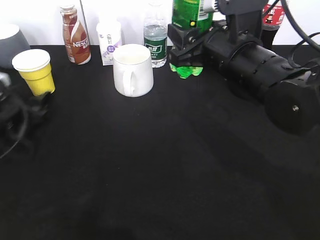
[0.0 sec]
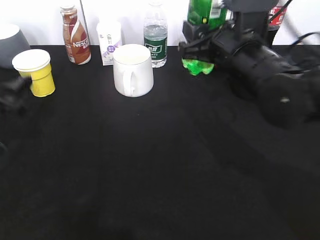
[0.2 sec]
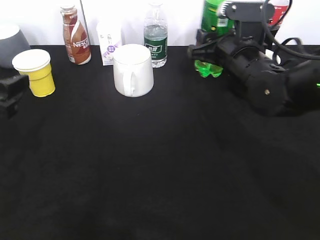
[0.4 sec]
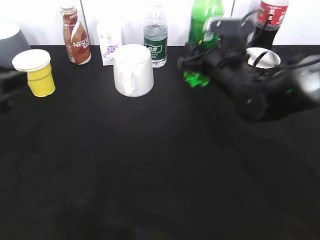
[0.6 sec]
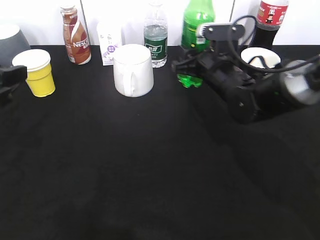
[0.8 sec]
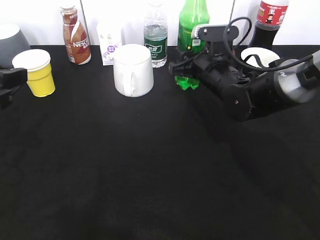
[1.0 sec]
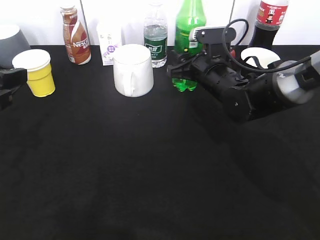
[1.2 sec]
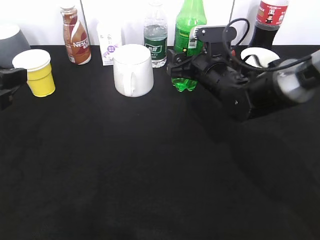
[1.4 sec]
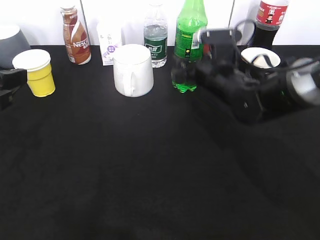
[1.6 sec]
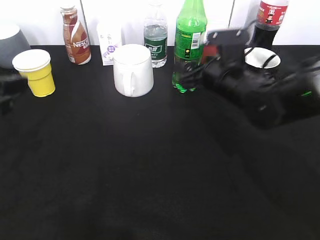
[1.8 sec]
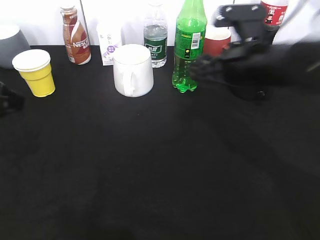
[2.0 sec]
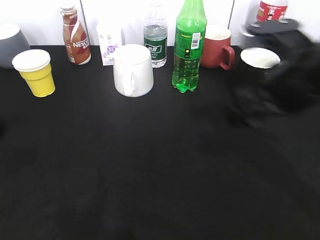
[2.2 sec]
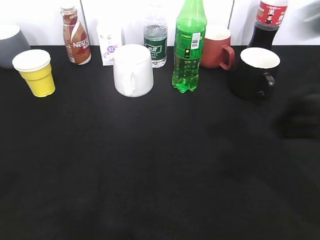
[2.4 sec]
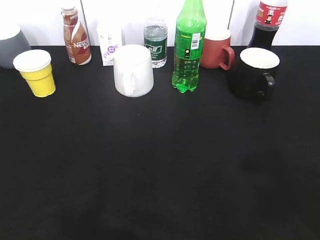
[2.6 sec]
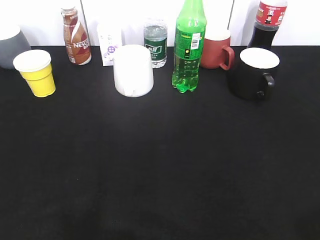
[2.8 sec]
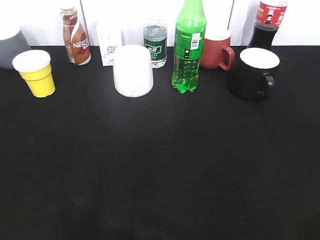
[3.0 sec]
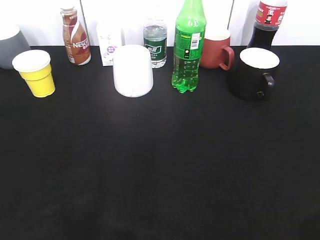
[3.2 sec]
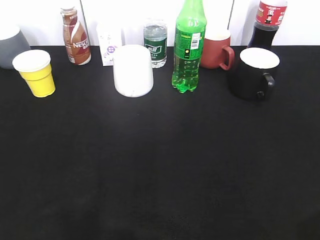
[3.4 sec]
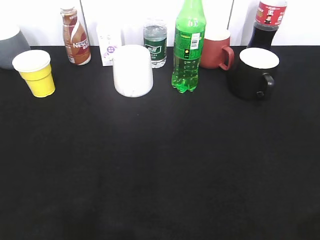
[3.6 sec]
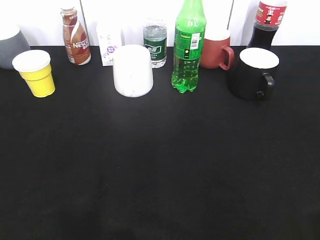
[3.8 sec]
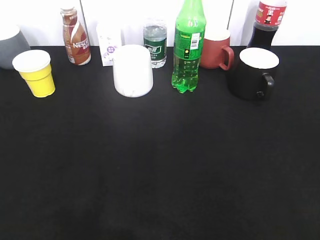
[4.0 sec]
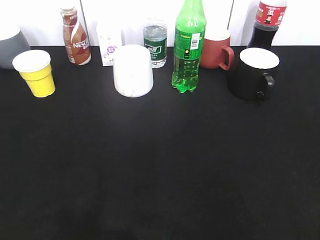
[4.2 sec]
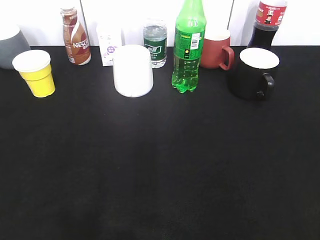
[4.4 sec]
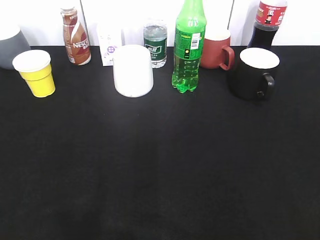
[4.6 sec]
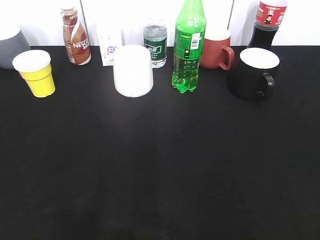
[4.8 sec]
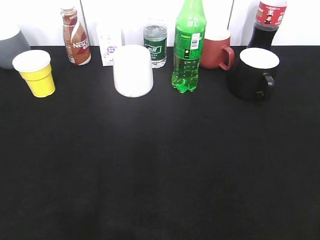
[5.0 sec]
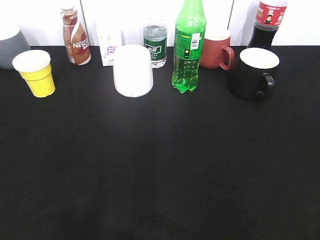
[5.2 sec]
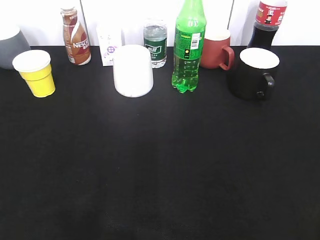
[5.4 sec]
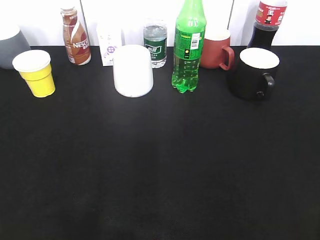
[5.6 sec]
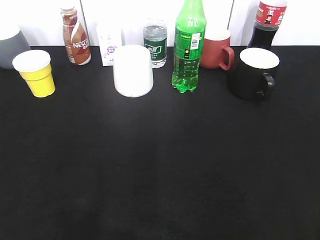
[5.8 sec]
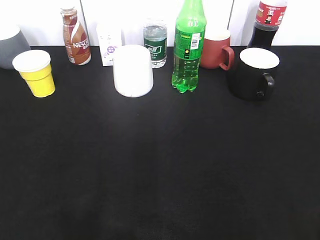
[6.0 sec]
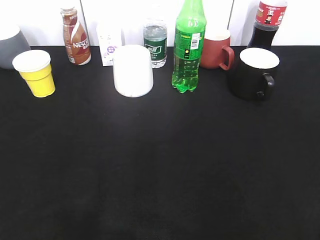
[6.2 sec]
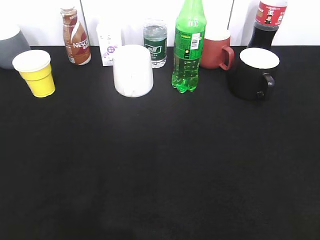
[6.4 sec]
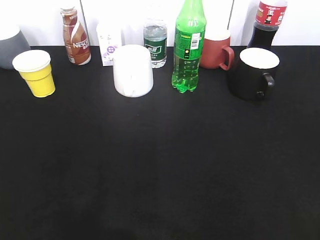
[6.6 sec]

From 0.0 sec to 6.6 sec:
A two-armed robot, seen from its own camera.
From 0.0 sec to 1.6 sec: The right gripper goes some 10 cm downward and forward, and opens its fingers, while the left gripper is displaced upward and backward by approximately 15 cm.
From 1.6 sec to 3.2 sec: The left gripper shifts approximately 20 cm backward, while the right gripper moves backward, to the right and upward, about 40 cm.
From 5.0 sec to 6.6 sec: Both grippers stay put.

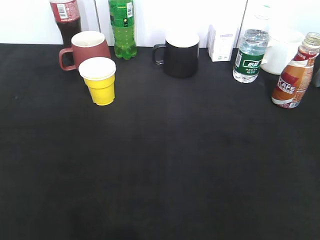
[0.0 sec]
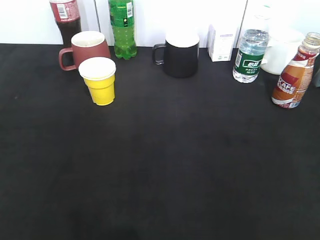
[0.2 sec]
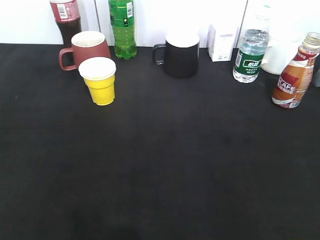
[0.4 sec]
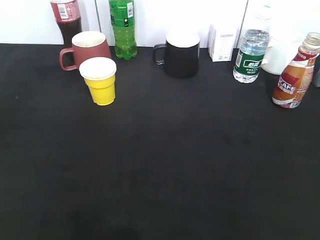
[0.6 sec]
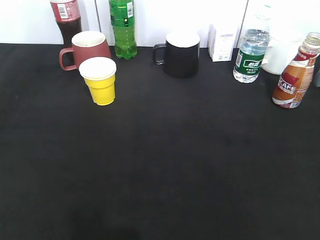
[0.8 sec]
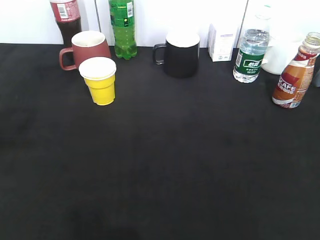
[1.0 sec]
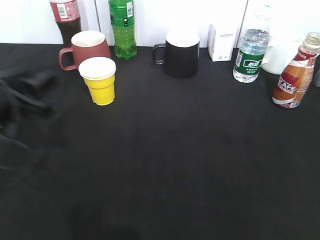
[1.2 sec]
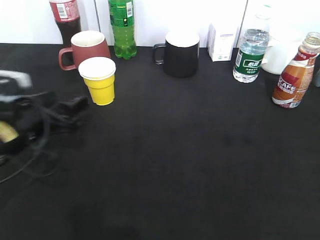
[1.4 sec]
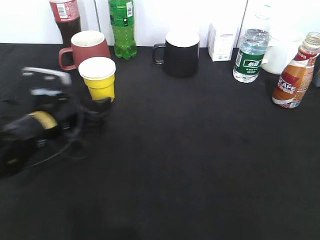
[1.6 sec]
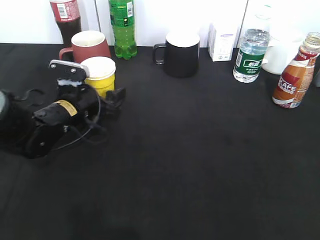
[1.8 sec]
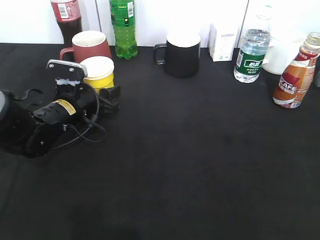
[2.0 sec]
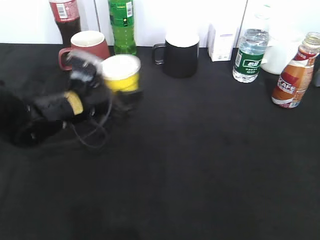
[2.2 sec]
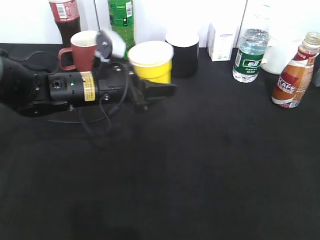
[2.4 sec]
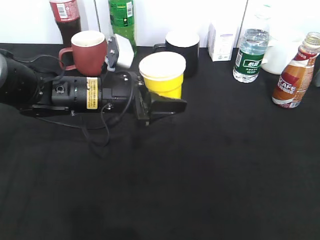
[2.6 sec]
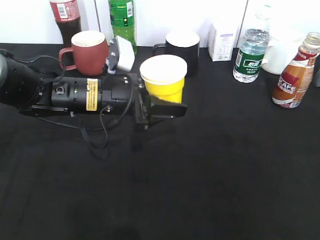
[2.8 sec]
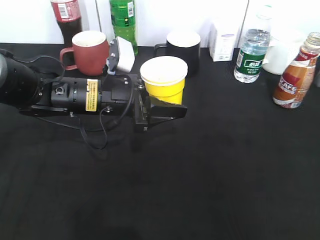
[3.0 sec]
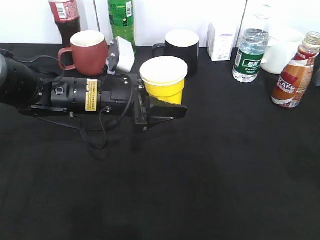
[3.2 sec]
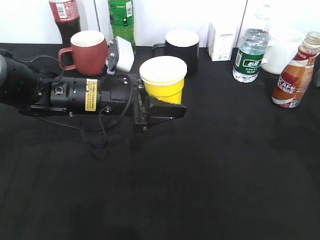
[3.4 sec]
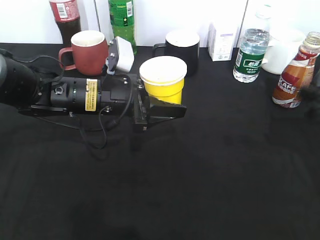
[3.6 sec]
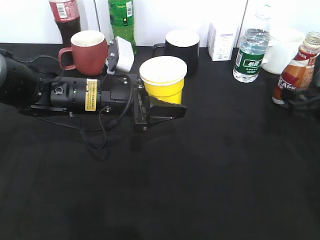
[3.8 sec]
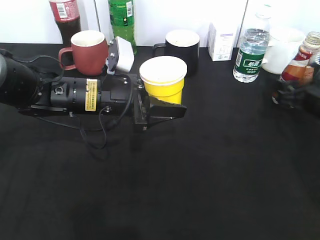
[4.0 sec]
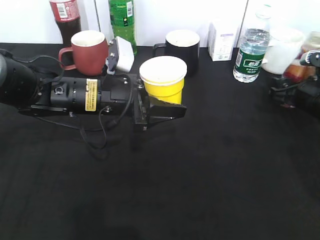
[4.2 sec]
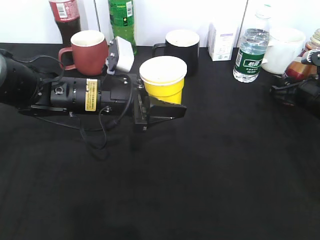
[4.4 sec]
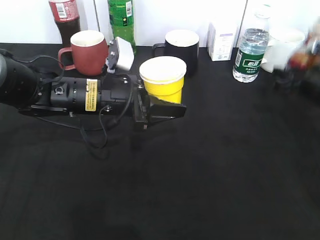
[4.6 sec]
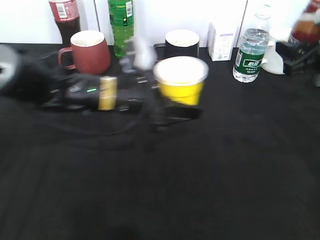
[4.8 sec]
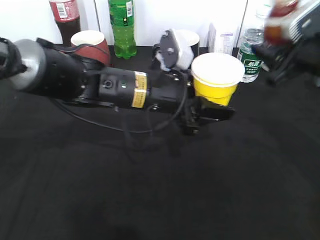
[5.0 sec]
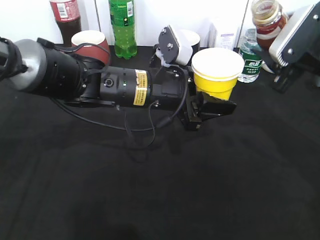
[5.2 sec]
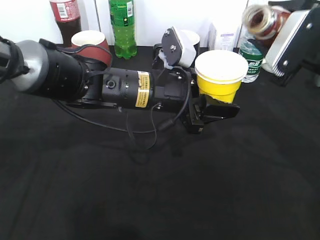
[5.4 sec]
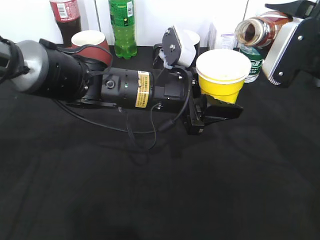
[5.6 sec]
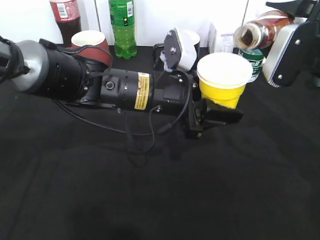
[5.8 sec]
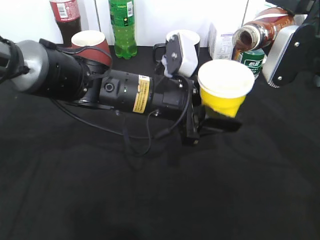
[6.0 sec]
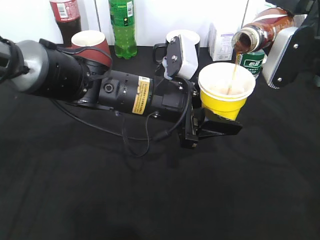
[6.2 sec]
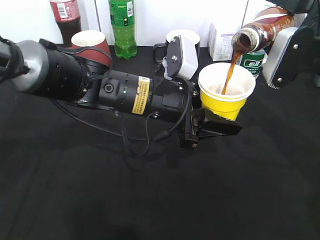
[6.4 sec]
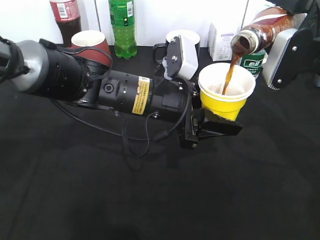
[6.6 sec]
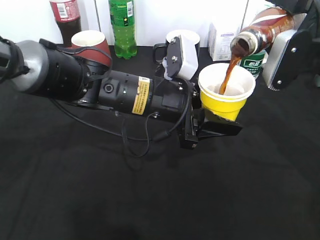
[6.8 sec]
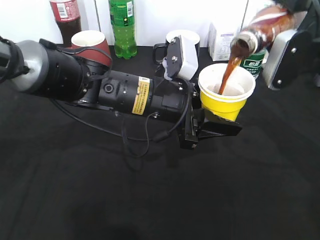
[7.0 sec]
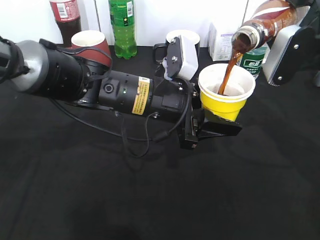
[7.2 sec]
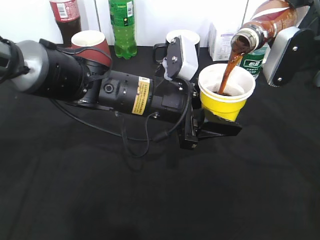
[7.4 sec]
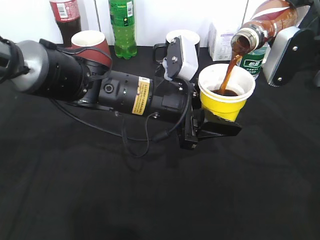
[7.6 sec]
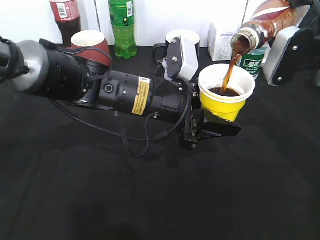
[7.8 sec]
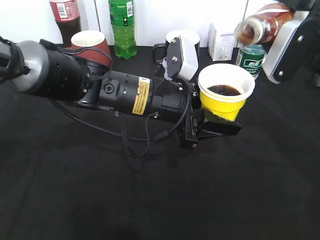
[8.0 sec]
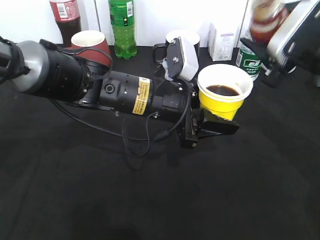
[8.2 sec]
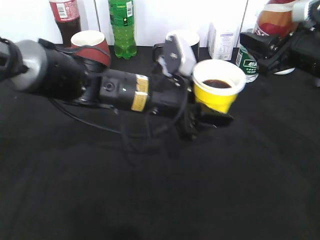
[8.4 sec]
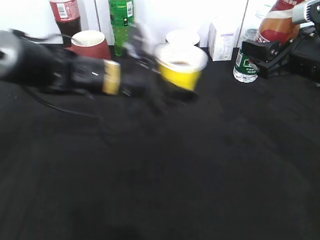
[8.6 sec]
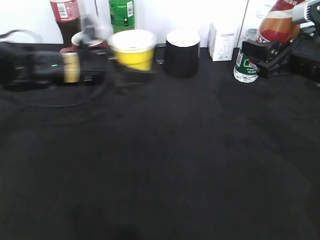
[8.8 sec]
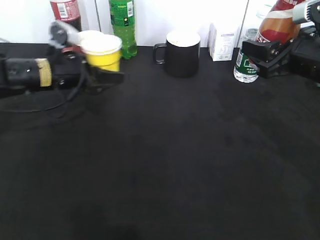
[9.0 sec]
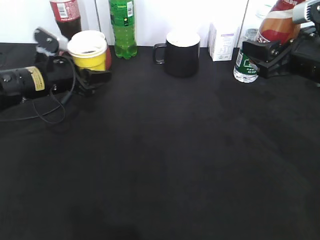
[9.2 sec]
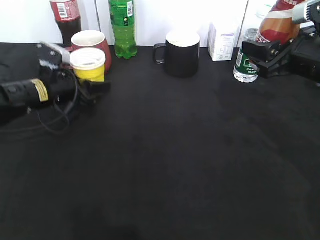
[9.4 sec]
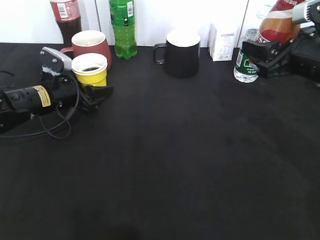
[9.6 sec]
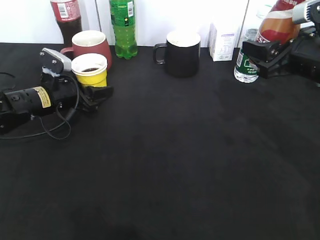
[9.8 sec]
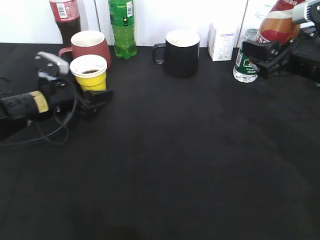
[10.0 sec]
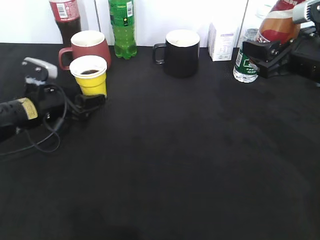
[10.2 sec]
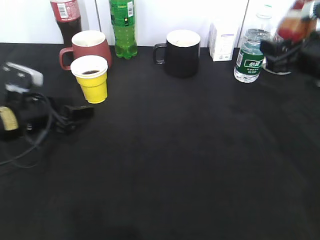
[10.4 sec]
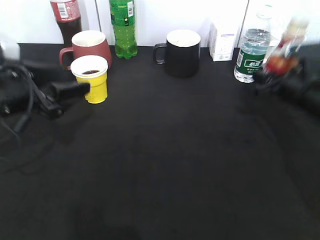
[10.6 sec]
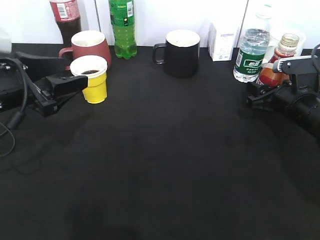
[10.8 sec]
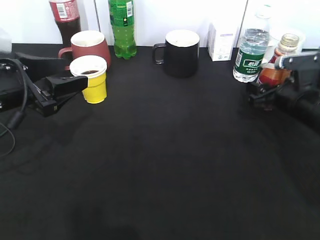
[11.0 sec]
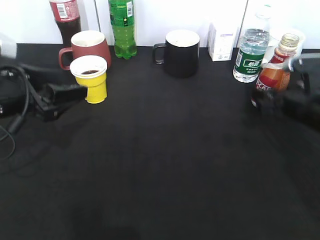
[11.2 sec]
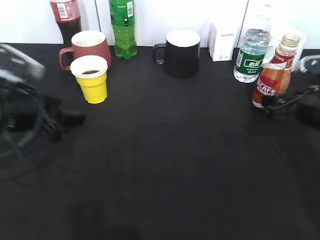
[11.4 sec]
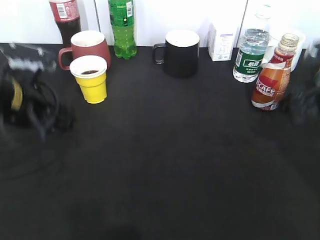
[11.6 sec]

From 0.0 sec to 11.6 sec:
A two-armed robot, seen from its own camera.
Step, from 1.2 sec to 2.0 sec: Grasp the yellow paper cup with left gripper.
Step, from 2.2 sec to 3.4 sec: Lift the yellow paper cup with left gripper.
Step, from 3.6 sec to 4.2 sec: Grasp the bottle with coffee with right gripper.
Step, from 4.4 sec to 8.0 sec: Pour the coffee from bottle to cup with right gripper.
Step, from 8.2 sec to 9.8 sec: Place the yellow paper cup on the table with left gripper.
Step, from 10.0 sec to 11.0 sec: Place the coffee bottle on the table with right gripper.
From 0.0 sec to 1.4 sec: The left gripper shifts about 30 cm forward, downward and to the right, and opens its fingers.
From 1.4 sec to 2.8 sec: The left gripper shifts approximately 15 cm to the right and forward, and closes.
From 2.8 sec to 4.4 sec: The right gripper goes approximately 40 cm forward and downward, and closes up.
From 4.4 sec to 5.8 sec: The left gripper heads to the right, covering some 10 cm. Meanwhile the right gripper goes some 15 cm upward and to the left.
From 5.8 sec to 7.2 sec: The grippers make only small movements.
From 7.2 sec to 8.8 sec: The left gripper moves to the left and forward, roughly 15 cm.
From 8.8 sec to 10.2 sec: The left gripper shifts roughly 10 cm to the left and downward, and opens its fingers.
From 10.2 sec to 11.6 sec: The right gripper moves roughly 10 cm downward and comes back, and opens up; the left gripper shifts about 15 cm upward and backward.

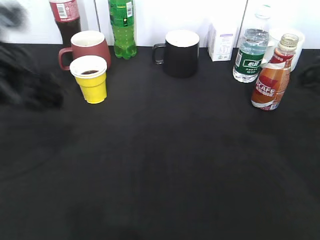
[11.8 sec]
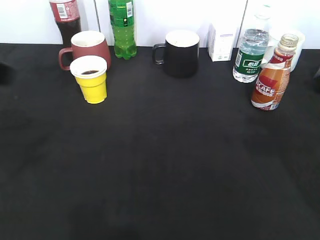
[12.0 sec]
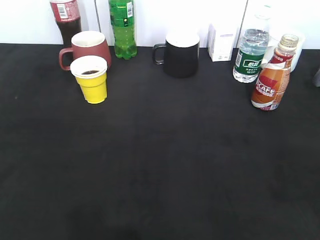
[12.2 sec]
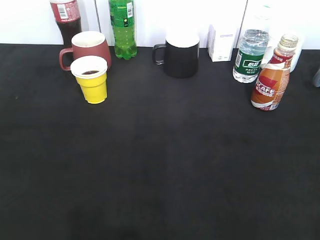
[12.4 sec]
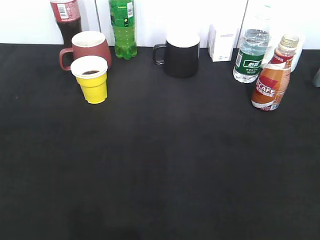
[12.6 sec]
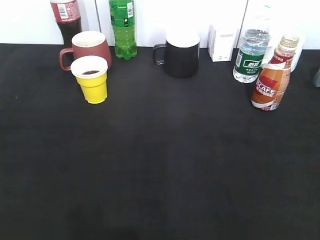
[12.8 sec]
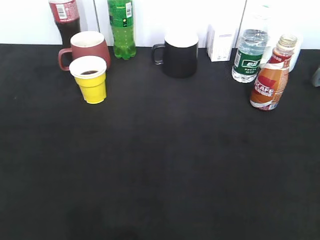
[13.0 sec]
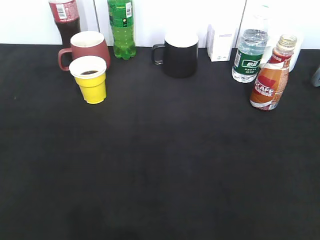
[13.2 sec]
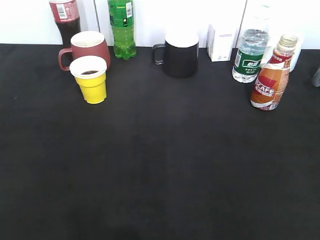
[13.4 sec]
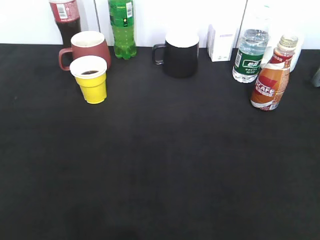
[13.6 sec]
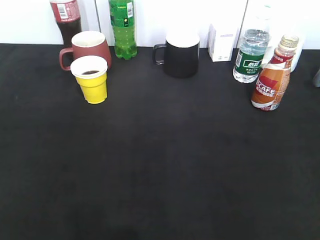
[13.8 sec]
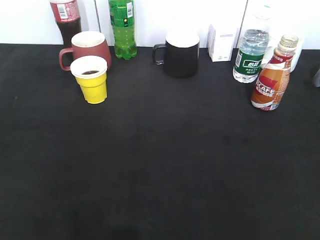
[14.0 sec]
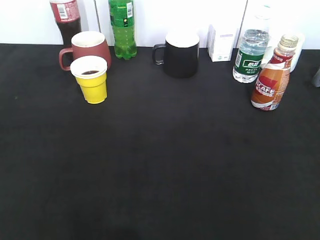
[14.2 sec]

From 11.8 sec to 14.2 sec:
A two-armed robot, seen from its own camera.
From 11.8 sec to 13.0 sec: The right gripper shifts approximately 25 cm backward, while the left gripper heads backward and to the left, covering roughly 25 cm.
From 13.0 sec to 14.2 sec: The left gripper closes.
